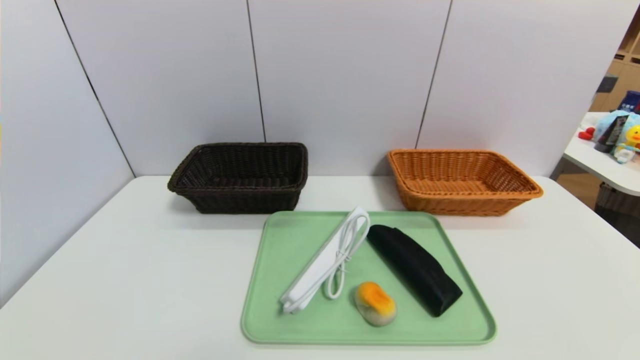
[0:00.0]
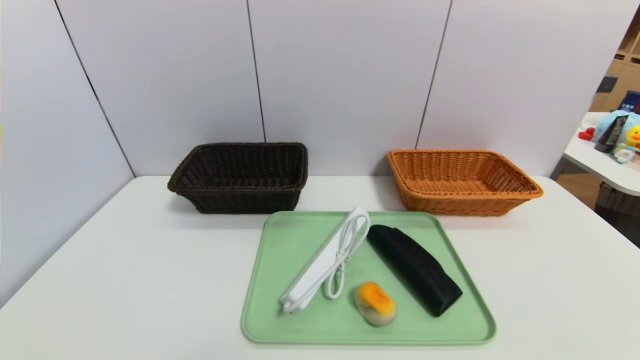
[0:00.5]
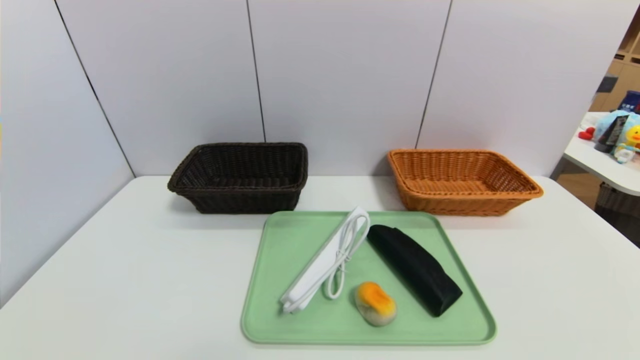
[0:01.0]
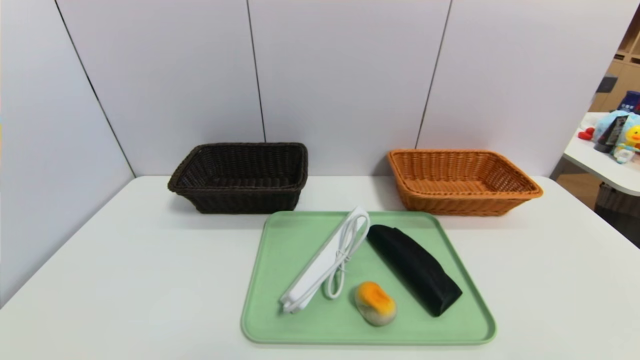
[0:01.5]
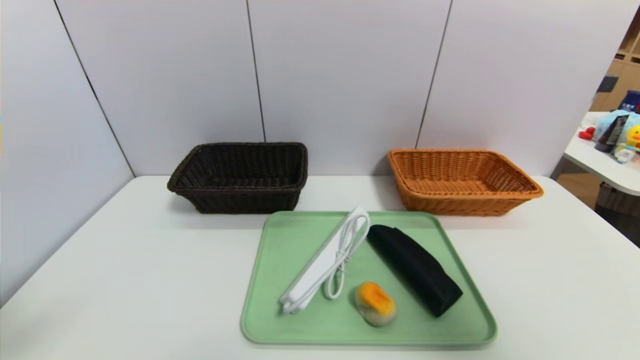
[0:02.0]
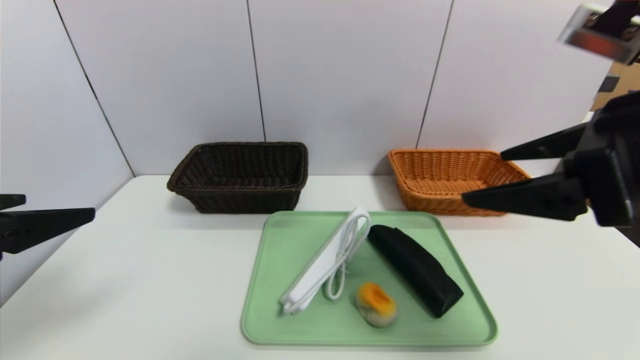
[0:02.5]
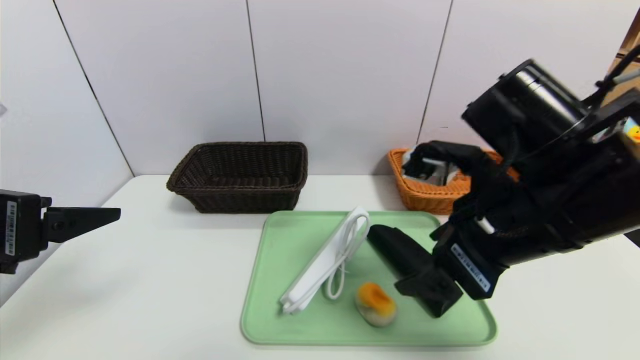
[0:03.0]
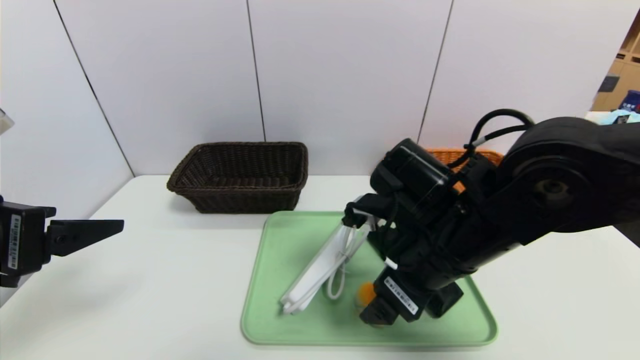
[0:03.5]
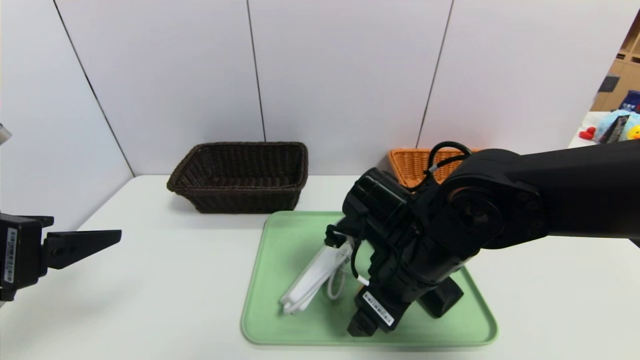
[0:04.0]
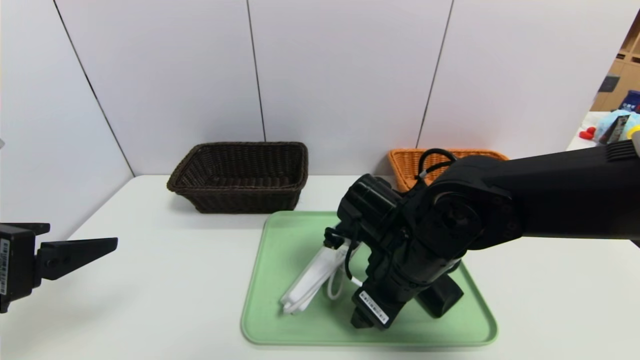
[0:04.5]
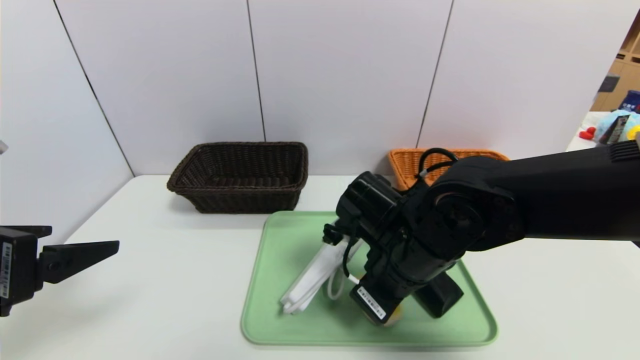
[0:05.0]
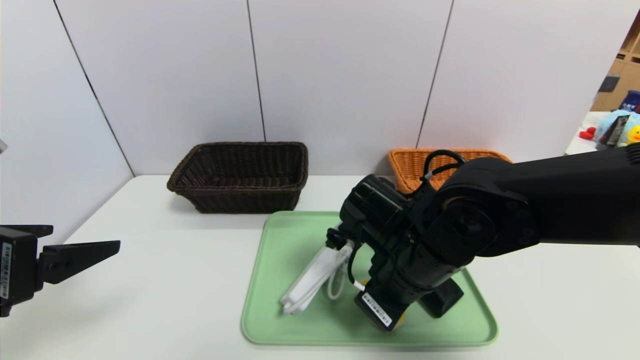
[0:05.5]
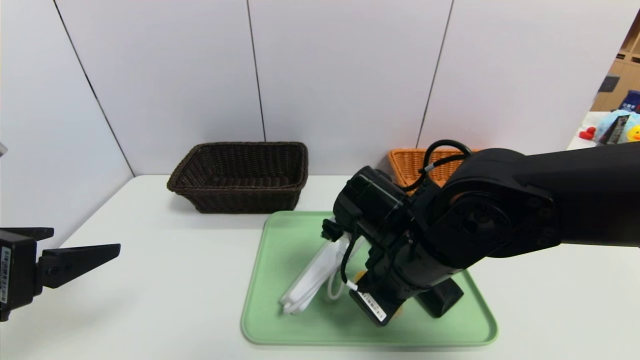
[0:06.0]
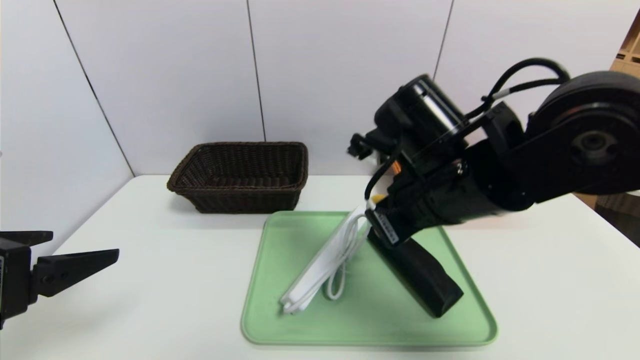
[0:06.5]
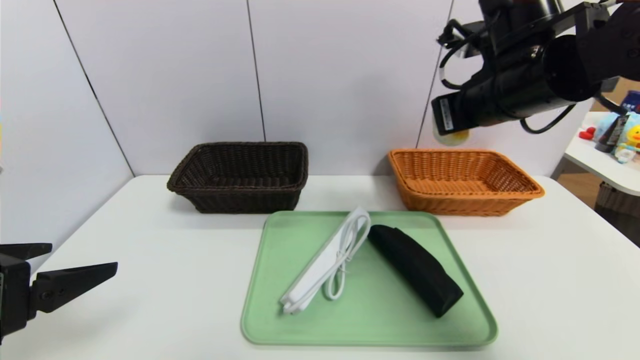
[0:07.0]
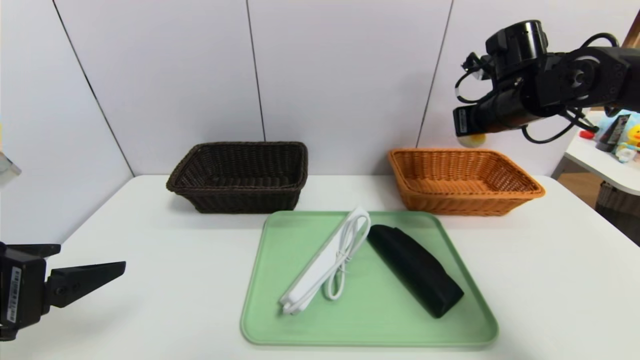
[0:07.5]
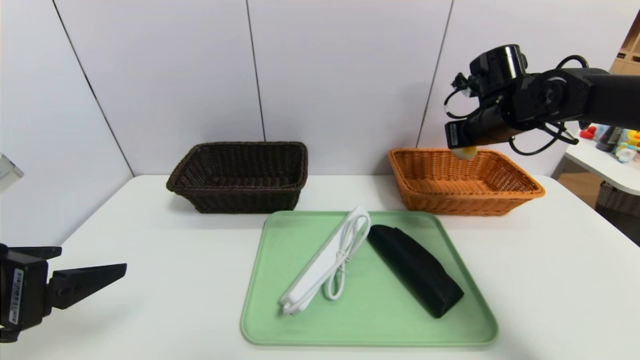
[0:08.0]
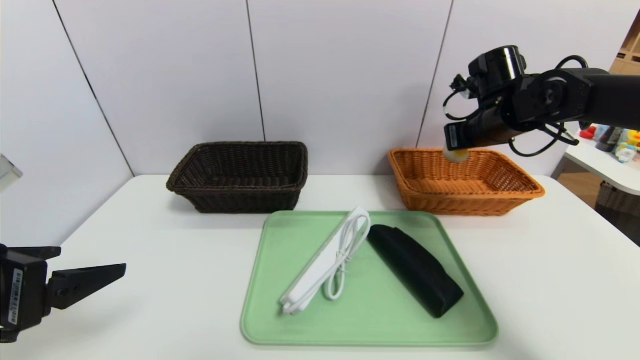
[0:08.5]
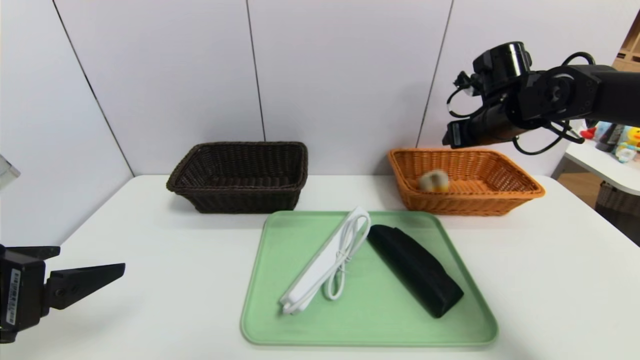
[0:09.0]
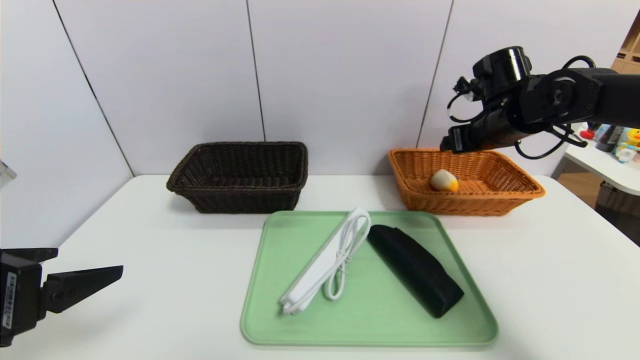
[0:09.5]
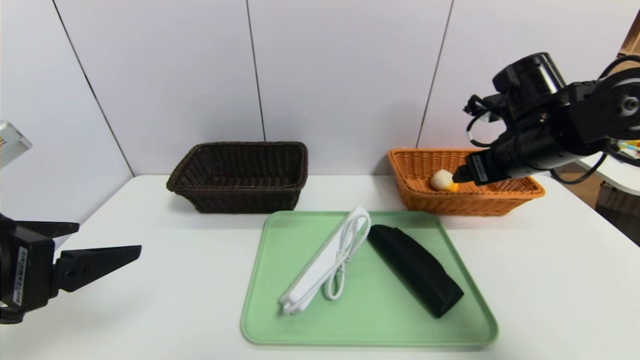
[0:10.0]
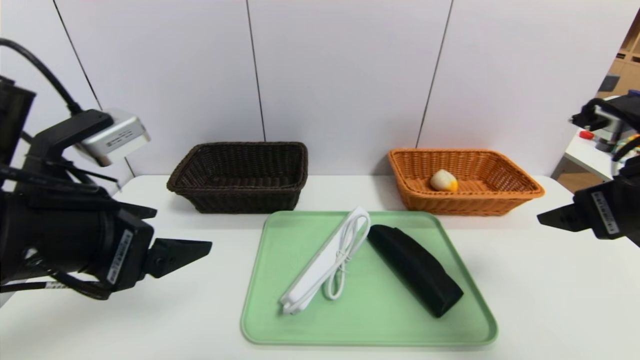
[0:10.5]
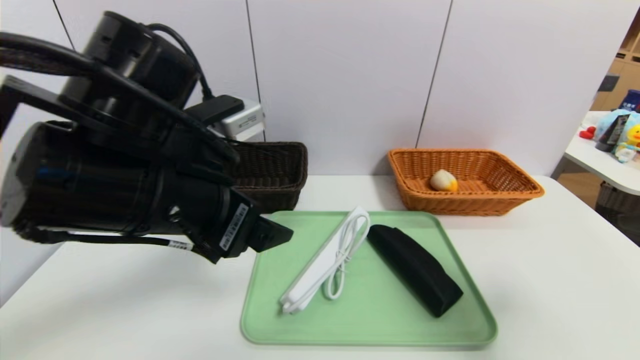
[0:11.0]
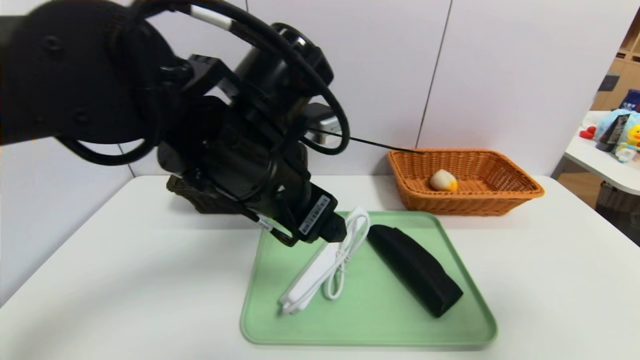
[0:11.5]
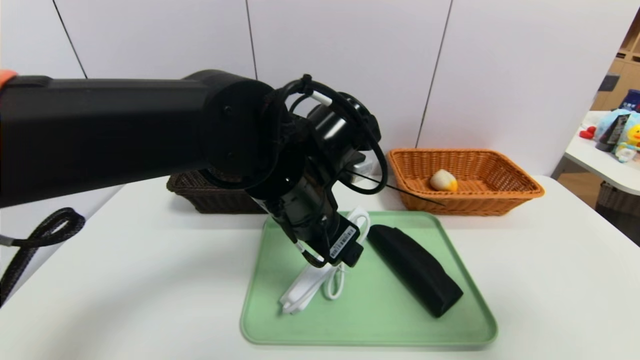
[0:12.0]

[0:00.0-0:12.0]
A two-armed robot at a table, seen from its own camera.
Task of the whole recording: place the food in the right basket with the right gripper, and place the non food items in the left basket with the left gripper.
Step, 0:00.0 to 0:09.5: Grasp the egg yolk pastry and put it in the right basket.
0:00.0 to 0:02.0: The grippers both shift upward by some 25 cm.
0:02.0 to 0:04.0: The right gripper goes approximately 35 cm to the left, downward and forward. The left gripper is displaced forward by roughly 10 cm.
0:04.0 to 0:06.0: The right gripper closes its fingers.
0:06.0 to 0:08.0: The right gripper goes roughly 25 cm forward and to the right.
0:08.0 to 0:10.0: The right gripper is displaced backward by approximately 10 cm, and opens up.
0:10.0 to 0:12.0: The right gripper goes some 25 cm backward. Meanwhile the left gripper is displaced to the right and forward by some 25 cm.

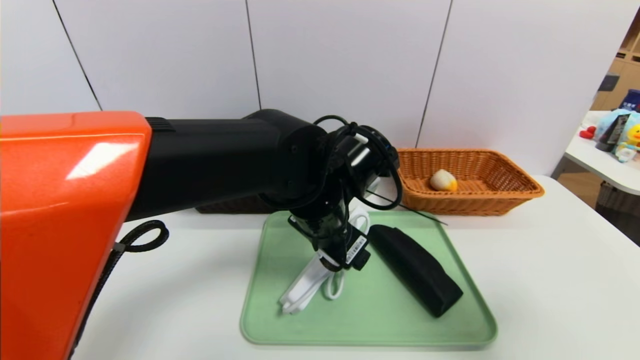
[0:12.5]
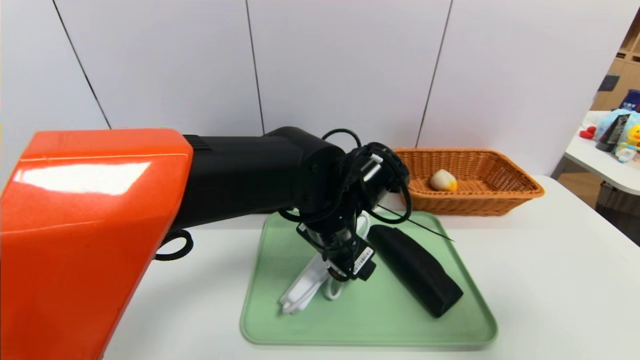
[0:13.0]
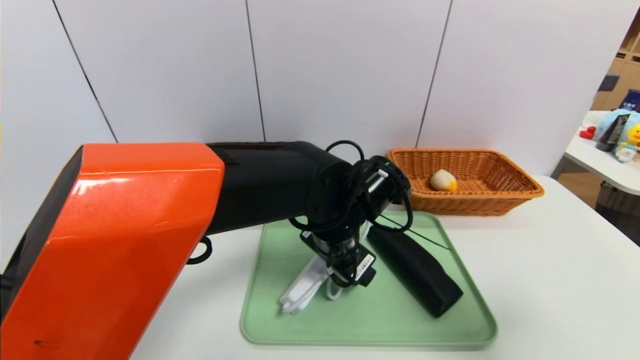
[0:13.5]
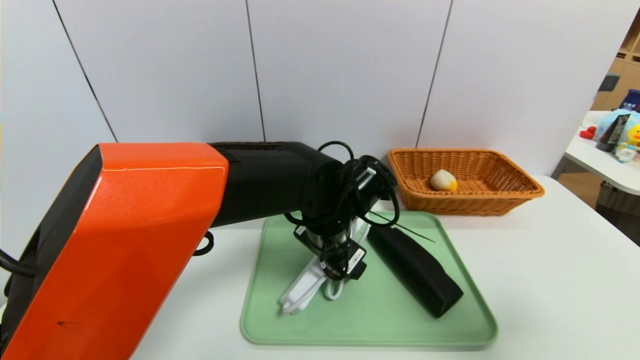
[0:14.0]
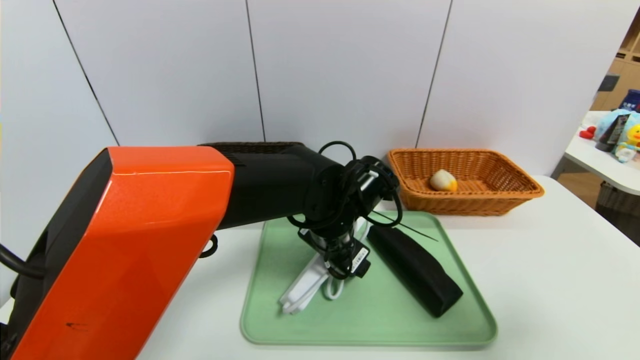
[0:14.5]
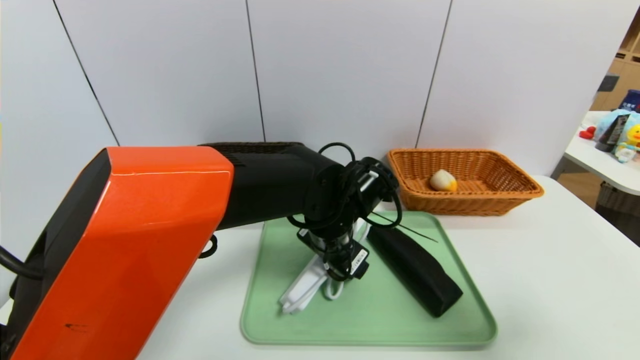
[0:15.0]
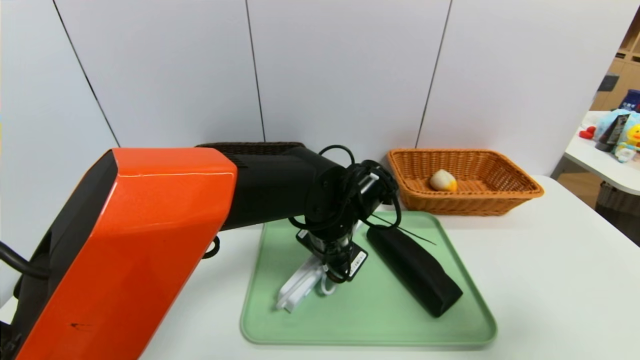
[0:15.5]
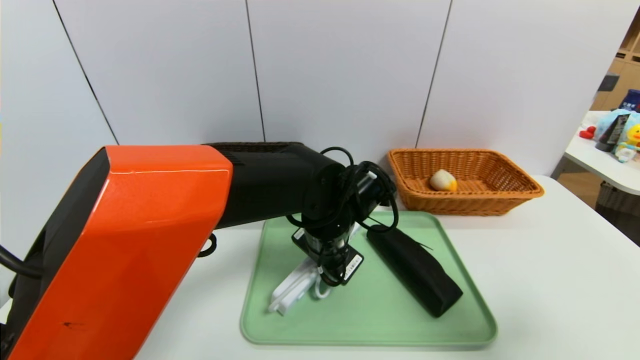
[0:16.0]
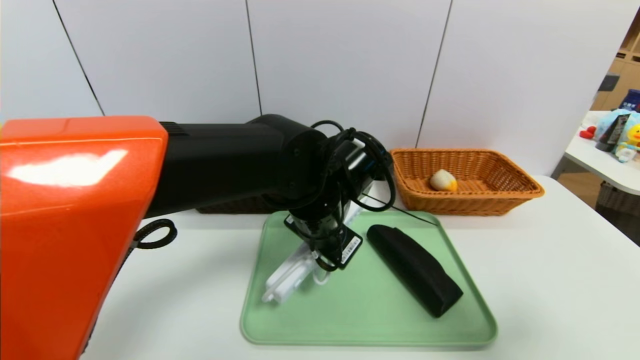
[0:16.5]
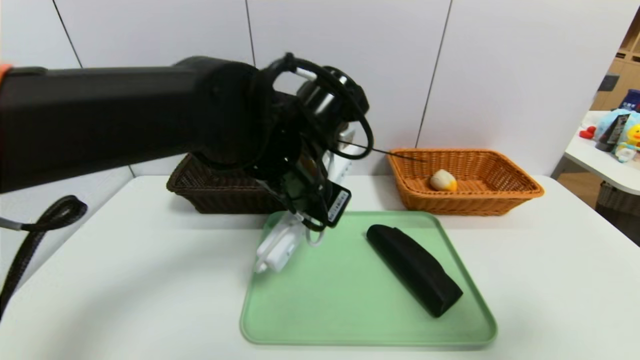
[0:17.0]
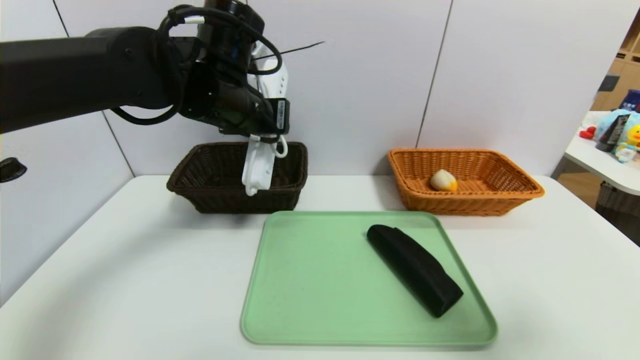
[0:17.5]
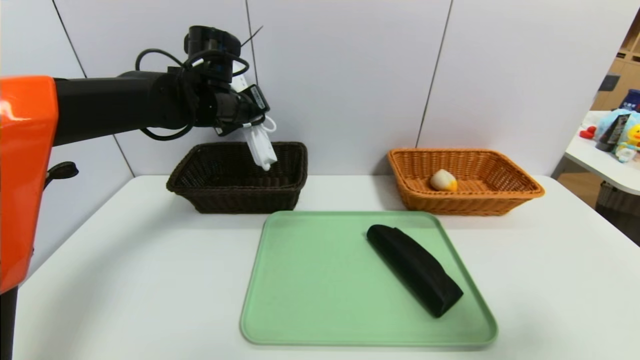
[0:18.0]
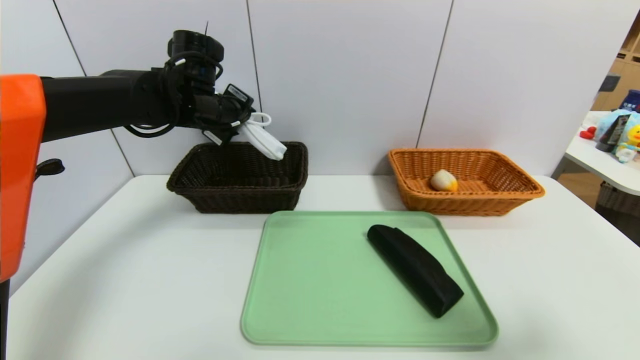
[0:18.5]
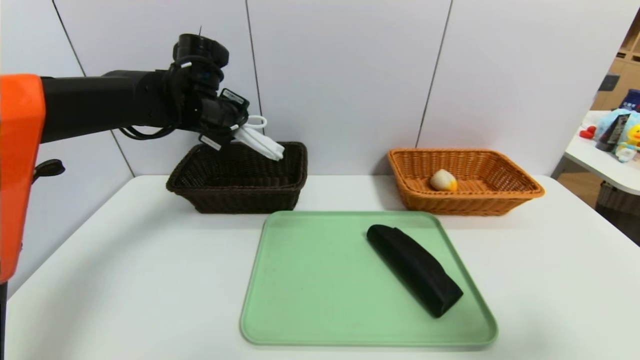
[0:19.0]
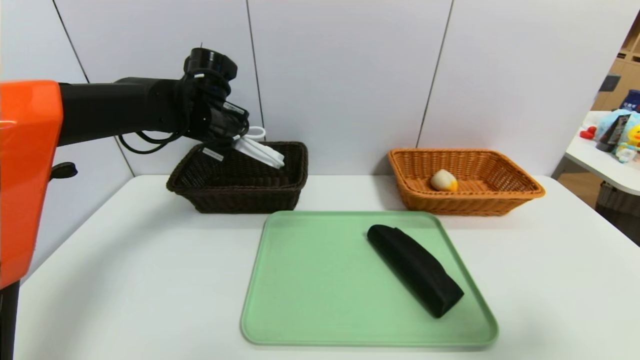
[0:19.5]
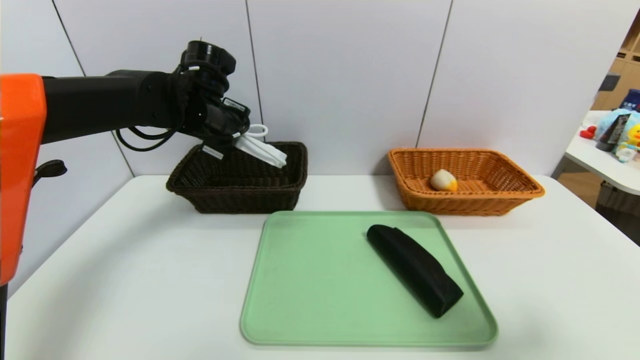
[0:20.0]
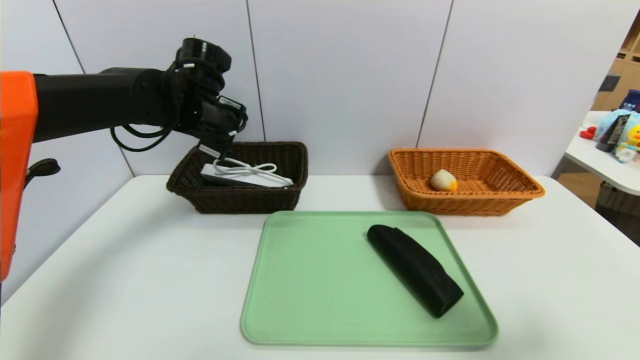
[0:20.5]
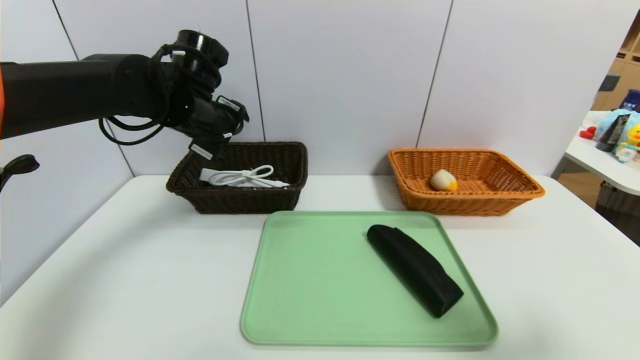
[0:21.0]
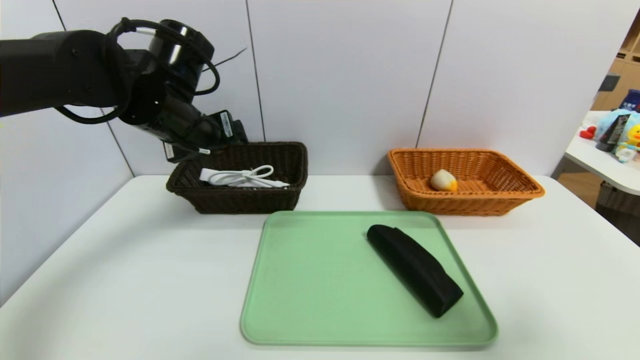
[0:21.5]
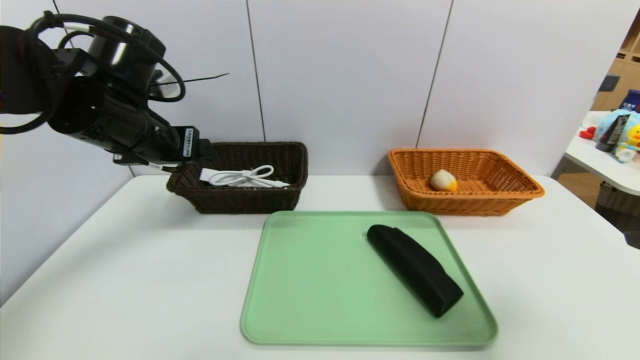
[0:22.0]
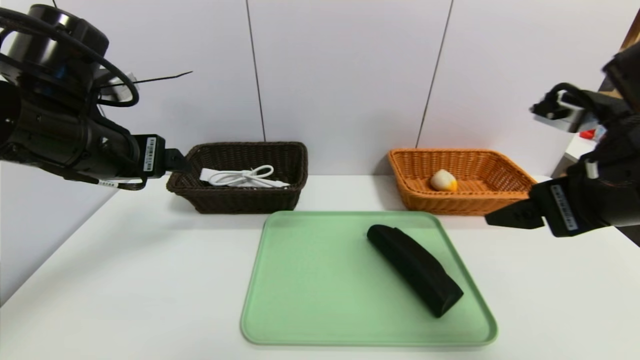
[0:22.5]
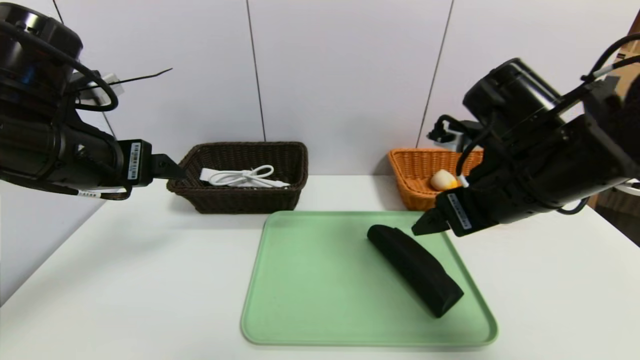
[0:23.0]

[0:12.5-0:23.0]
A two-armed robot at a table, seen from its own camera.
Task of the whole recording: place the food in the right basket with the right gripper, and place the non food items in the left basket with the left gripper.
Step, 0:12.5 to 0:20.5: Grasp the power strip and put it in the left basket.
0:12.5 to 0:14.5: The left gripper ends up some 5 cm from where it was.
0:14.5 to 0:16.5: The left gripper moves about 5 cm, and closes.
0:16.5 to 0:19.0: The left gripper goes some 25 cm to the left, forward and upward.
0:19.0 to 0:21.0: The left gripper opens its fingers.
0:21.0 to 0:23.0: The left gripper is displaced backward and to the left by approximately 15 cm, while the right gripper is displaced forward and to the left by some 20 cm.
